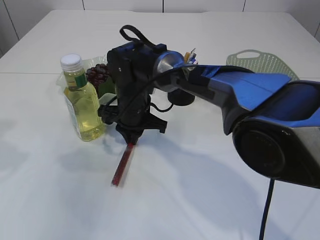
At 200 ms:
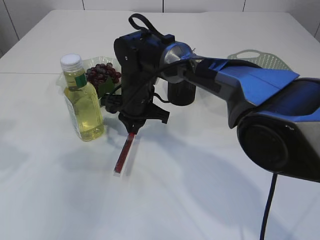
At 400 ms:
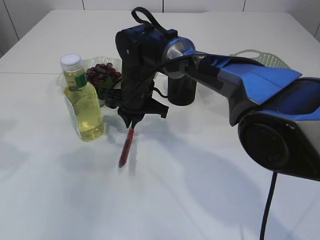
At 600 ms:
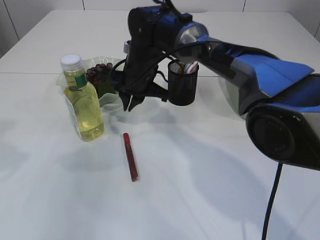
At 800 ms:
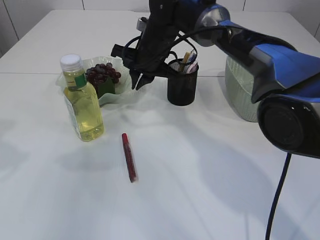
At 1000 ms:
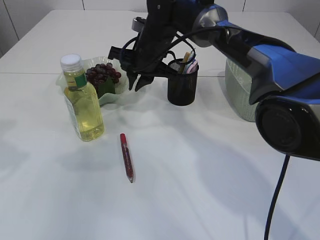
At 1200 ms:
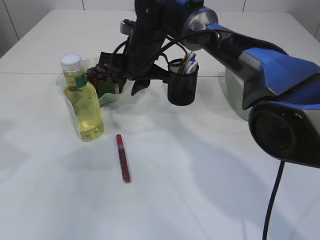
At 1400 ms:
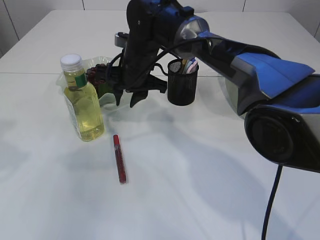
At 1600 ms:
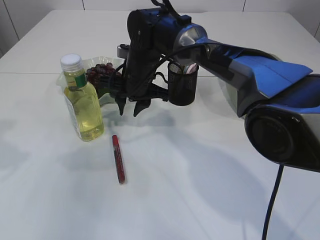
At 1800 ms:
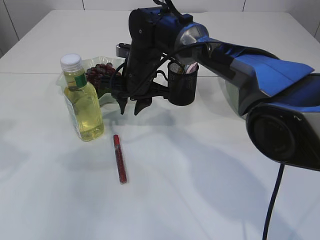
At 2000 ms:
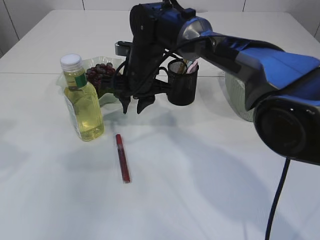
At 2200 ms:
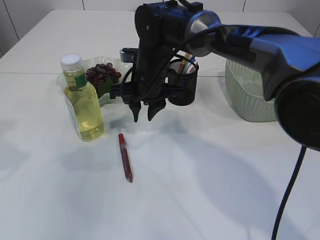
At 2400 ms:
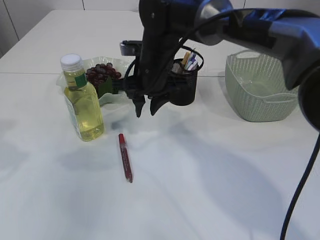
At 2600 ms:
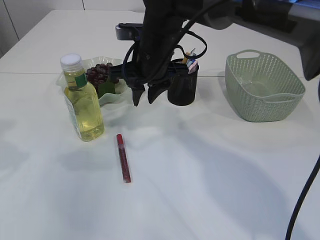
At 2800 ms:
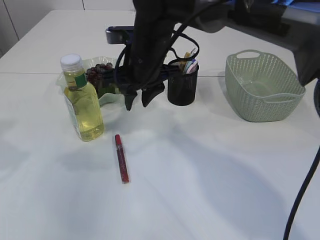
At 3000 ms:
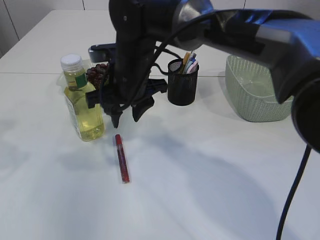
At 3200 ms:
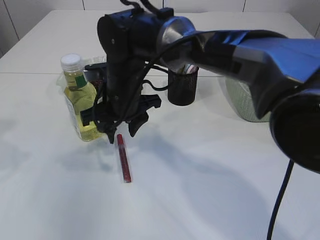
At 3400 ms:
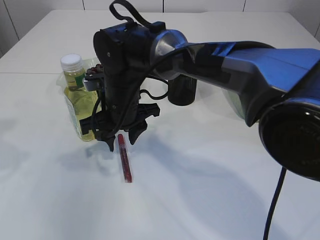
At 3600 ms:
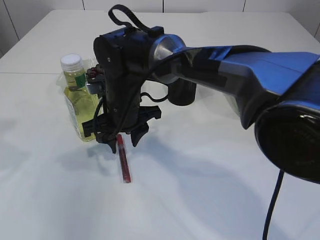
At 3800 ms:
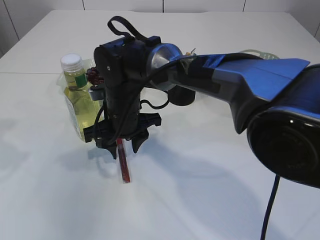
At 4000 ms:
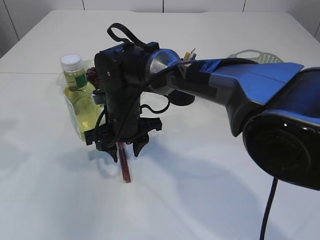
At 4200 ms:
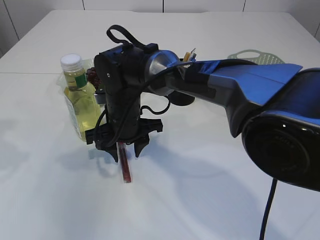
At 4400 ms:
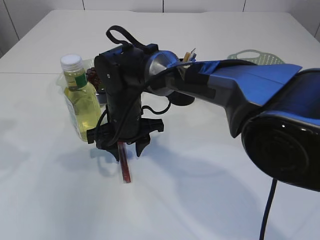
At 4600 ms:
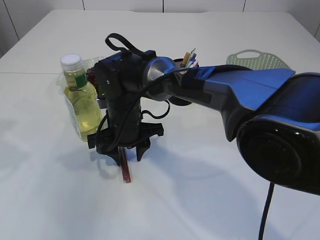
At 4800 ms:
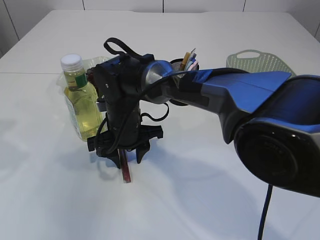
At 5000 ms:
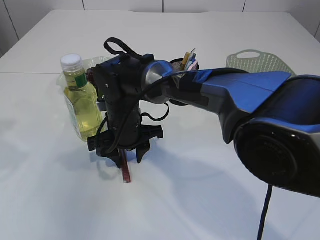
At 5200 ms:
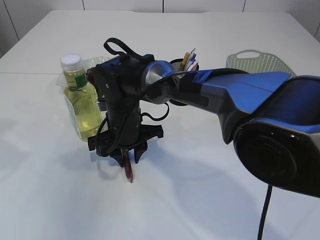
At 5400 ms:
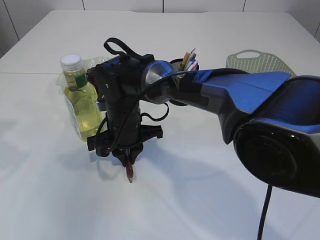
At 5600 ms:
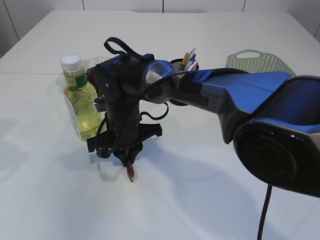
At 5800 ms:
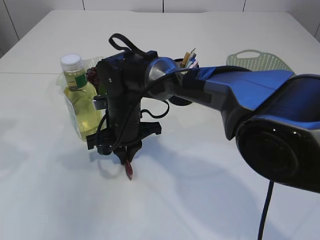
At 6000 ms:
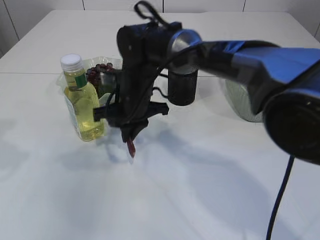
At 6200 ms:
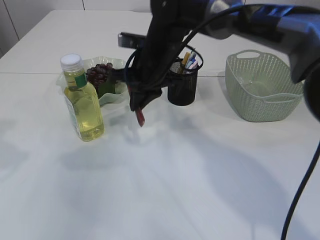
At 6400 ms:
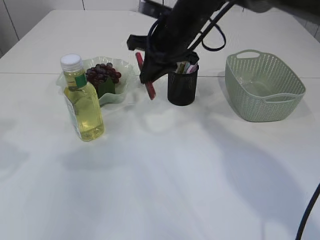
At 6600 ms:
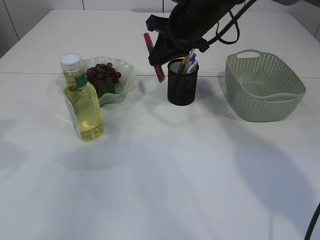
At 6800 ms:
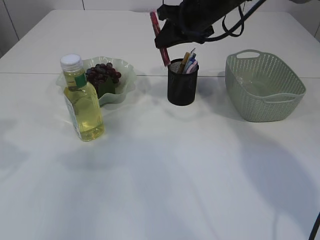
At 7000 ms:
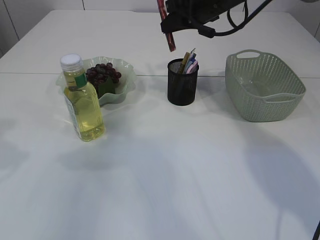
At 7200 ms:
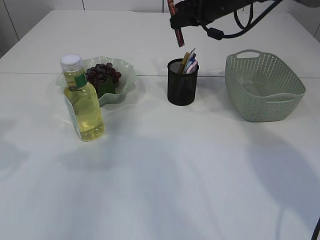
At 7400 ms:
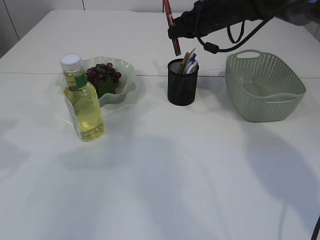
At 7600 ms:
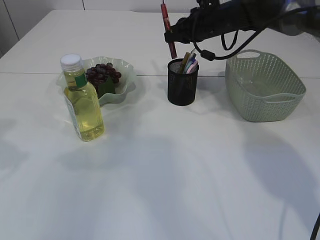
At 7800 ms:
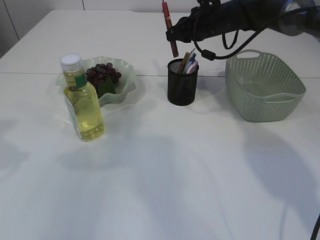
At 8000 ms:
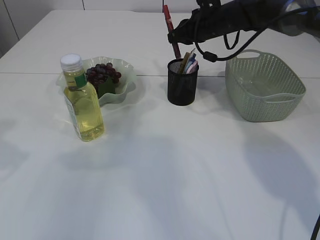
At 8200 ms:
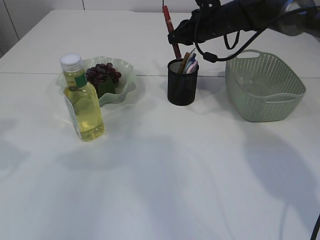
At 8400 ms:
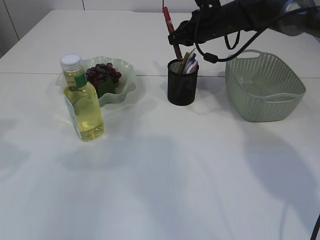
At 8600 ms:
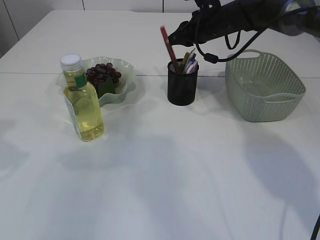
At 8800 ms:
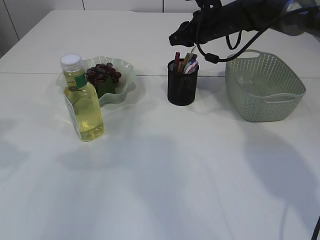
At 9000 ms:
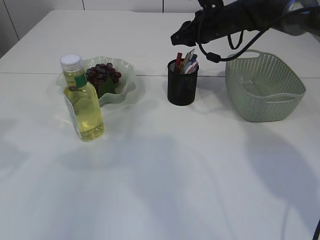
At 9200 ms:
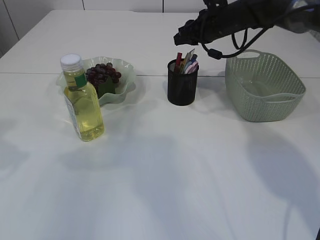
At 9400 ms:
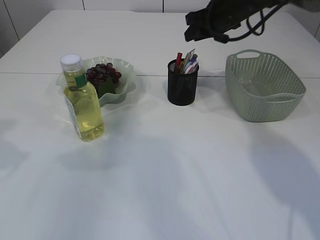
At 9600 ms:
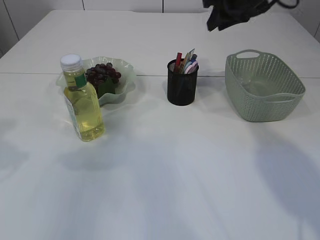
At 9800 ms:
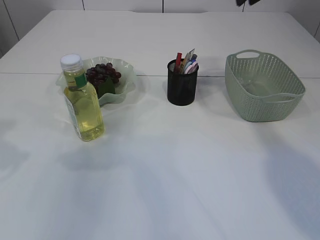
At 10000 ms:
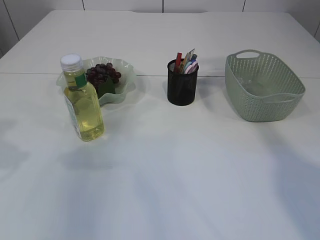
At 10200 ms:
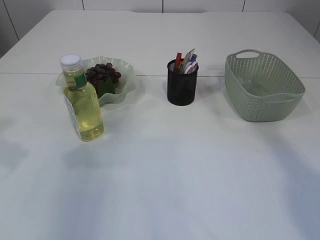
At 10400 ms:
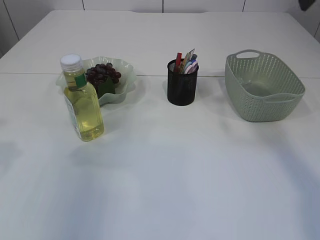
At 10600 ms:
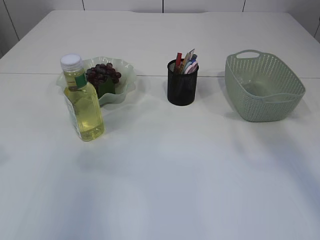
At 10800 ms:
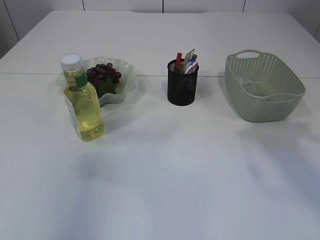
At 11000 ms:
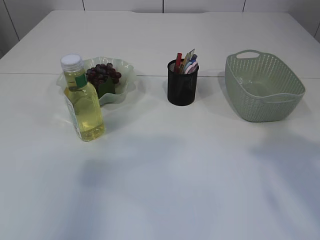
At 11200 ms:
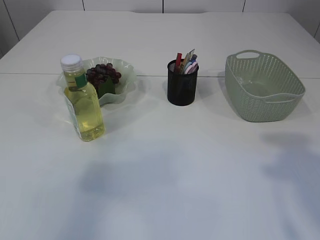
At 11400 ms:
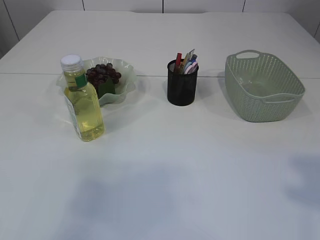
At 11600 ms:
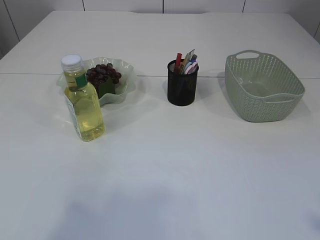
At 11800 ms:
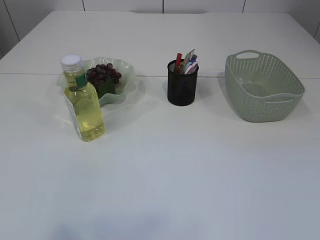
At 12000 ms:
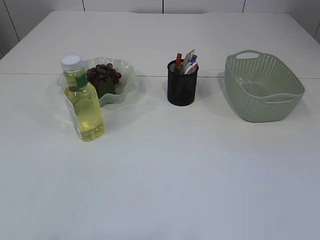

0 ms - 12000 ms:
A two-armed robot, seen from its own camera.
Step, 0 ms - 6200 ms: pick up the red glue.
Step, 6400 ms - 9200 ms: place the red glue into the pen holder.
0 ms - 1600 ms: The right gripper opens its fingers.
1600 ms - 3000 ms: The right gripper shifts approximately 5 cm backward.
3000 ms - 4400 ms: The right gripper shifts roughly 10 cm downward.
4400 ms - 6000 ms: The right gripper closes its fingers.
6000 ms - 7600 ms: The right gripper travels to the right, forward and upward by roughly 25 cm.
7600 ms - 9000 ms: The grippers move only a little.
9000 ms - 10400 ms: The right gripper heads backward, upward and to the right, covering approximately 30 cm. The left gripper opens.
10400 ms - 12000 ms: The left gripper shifts roughly 25 cm backward.

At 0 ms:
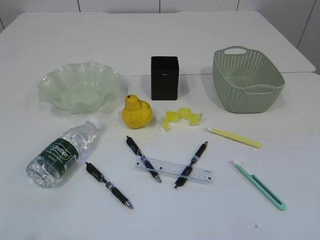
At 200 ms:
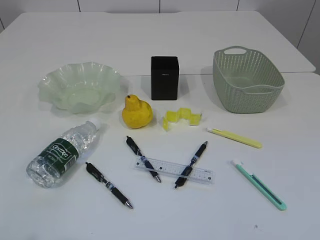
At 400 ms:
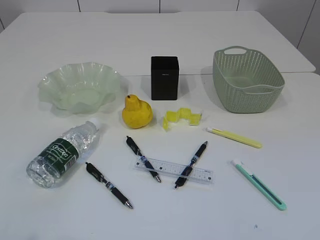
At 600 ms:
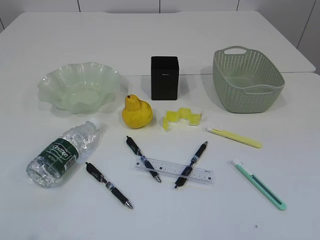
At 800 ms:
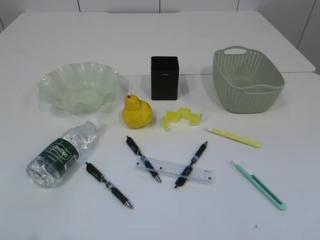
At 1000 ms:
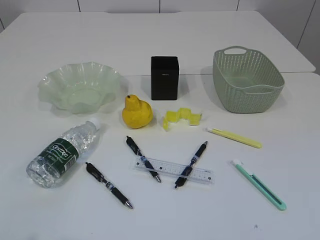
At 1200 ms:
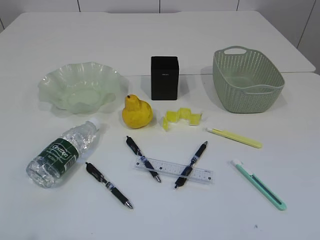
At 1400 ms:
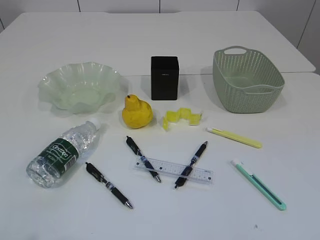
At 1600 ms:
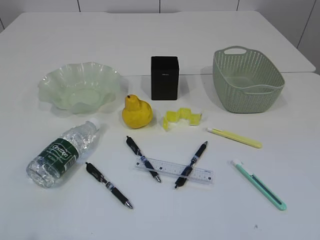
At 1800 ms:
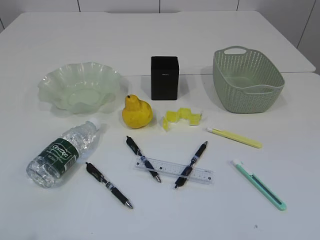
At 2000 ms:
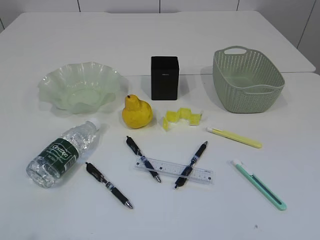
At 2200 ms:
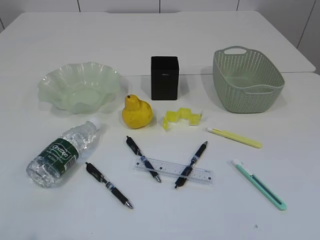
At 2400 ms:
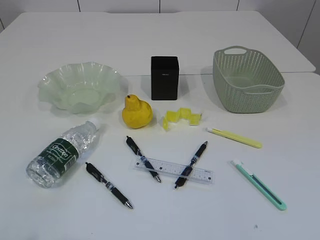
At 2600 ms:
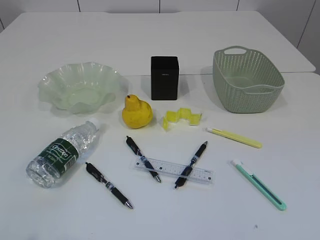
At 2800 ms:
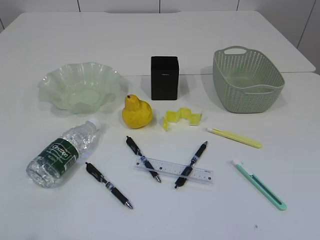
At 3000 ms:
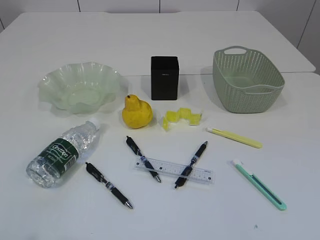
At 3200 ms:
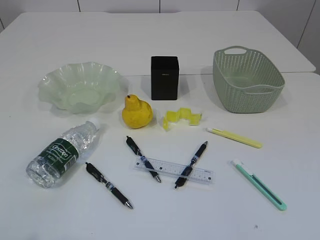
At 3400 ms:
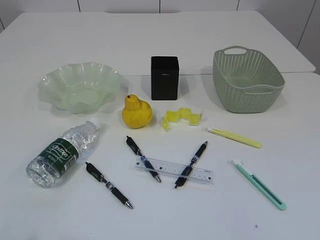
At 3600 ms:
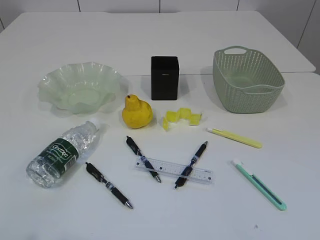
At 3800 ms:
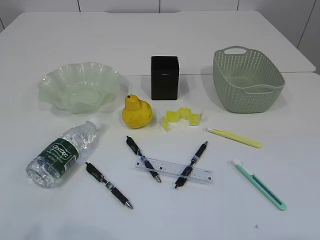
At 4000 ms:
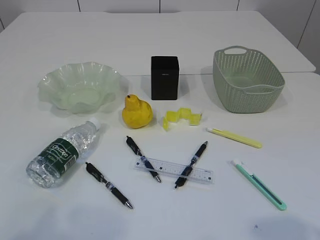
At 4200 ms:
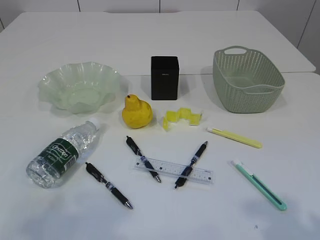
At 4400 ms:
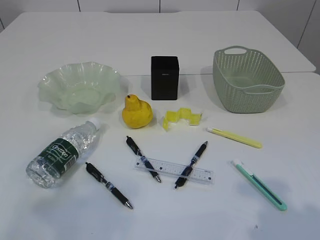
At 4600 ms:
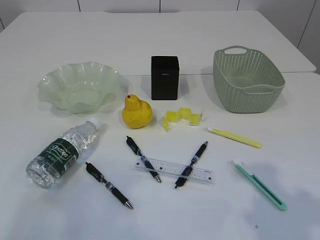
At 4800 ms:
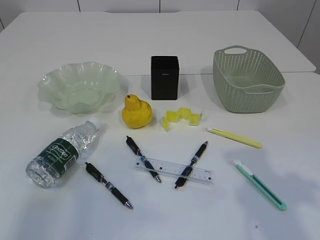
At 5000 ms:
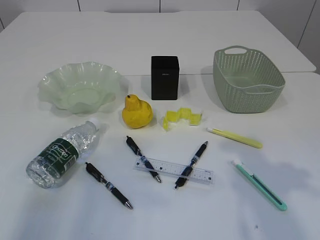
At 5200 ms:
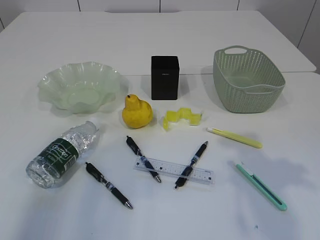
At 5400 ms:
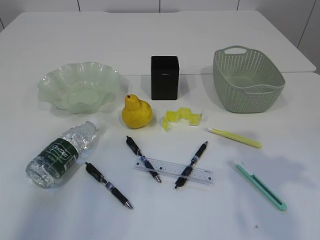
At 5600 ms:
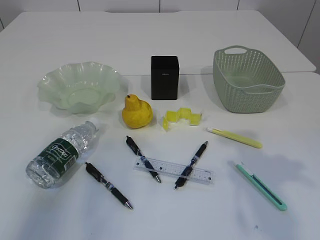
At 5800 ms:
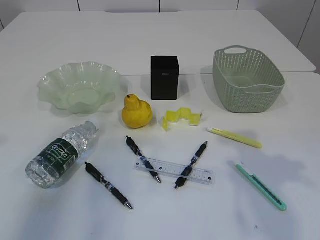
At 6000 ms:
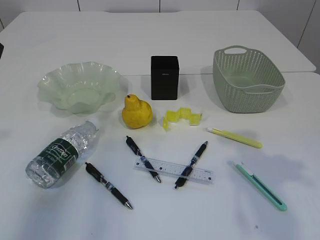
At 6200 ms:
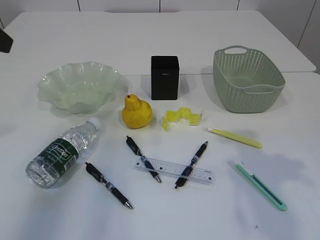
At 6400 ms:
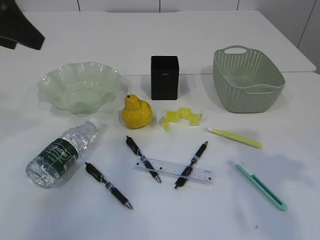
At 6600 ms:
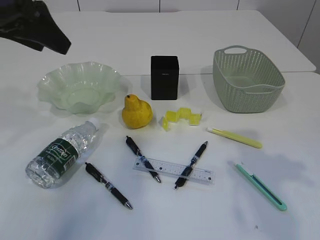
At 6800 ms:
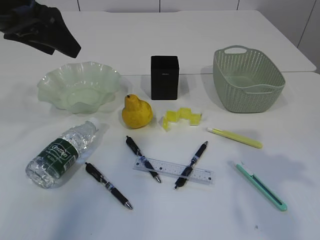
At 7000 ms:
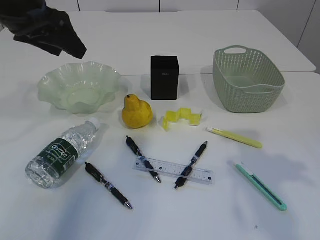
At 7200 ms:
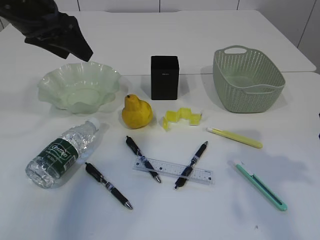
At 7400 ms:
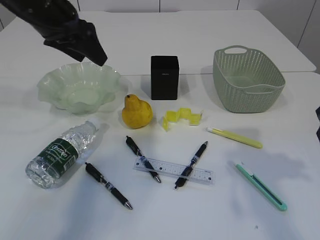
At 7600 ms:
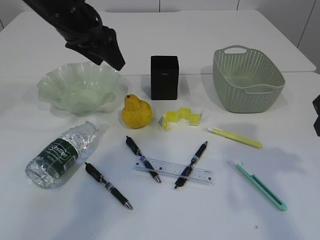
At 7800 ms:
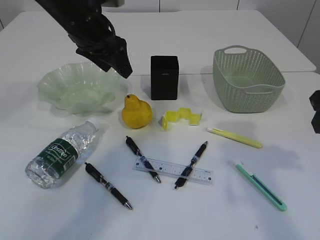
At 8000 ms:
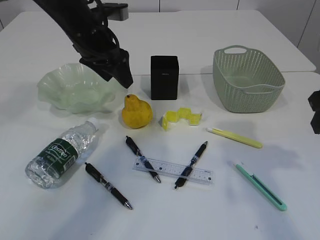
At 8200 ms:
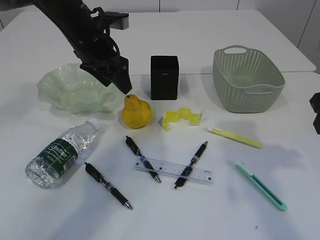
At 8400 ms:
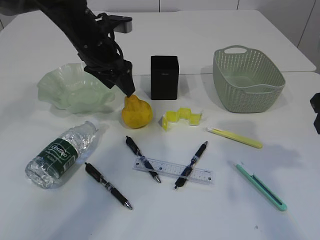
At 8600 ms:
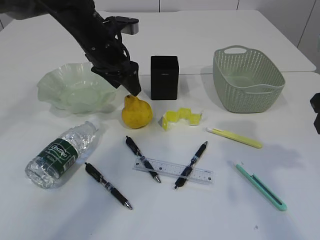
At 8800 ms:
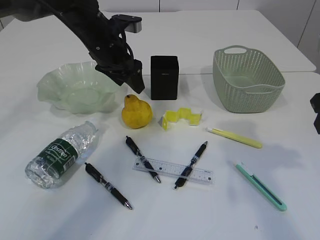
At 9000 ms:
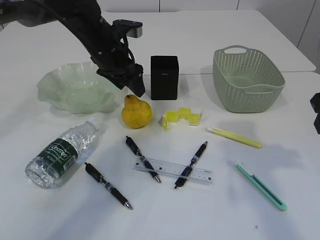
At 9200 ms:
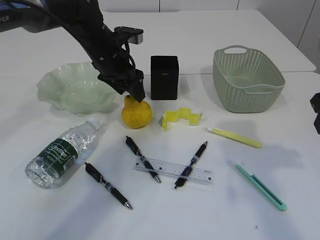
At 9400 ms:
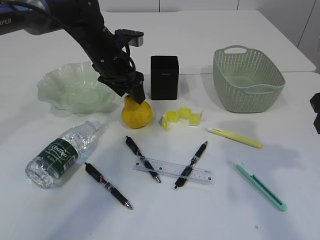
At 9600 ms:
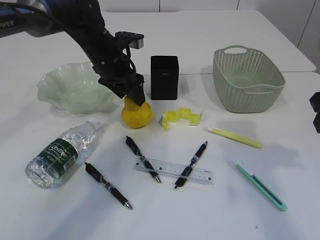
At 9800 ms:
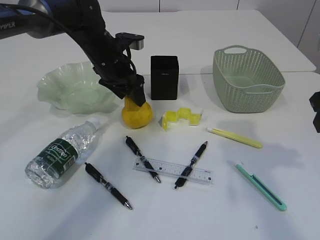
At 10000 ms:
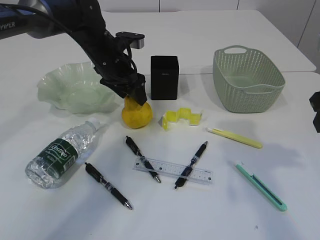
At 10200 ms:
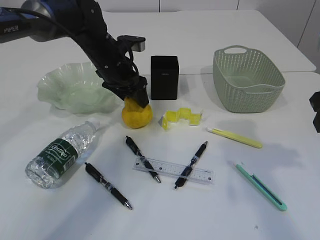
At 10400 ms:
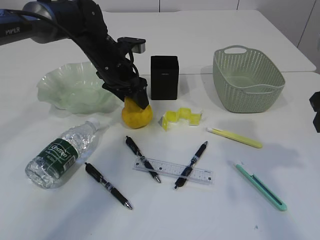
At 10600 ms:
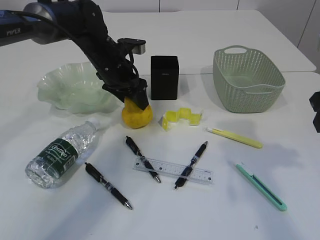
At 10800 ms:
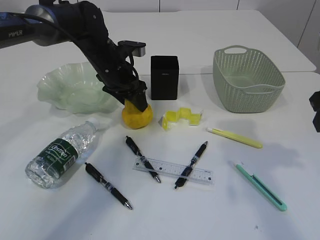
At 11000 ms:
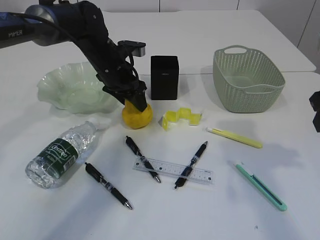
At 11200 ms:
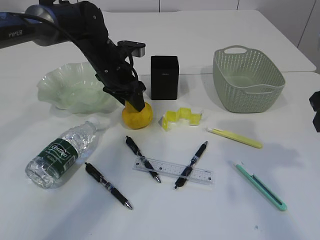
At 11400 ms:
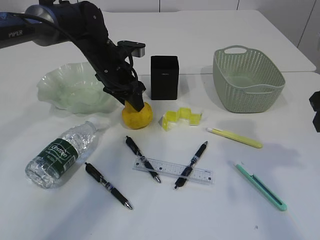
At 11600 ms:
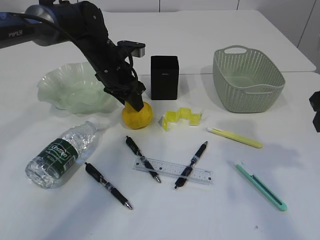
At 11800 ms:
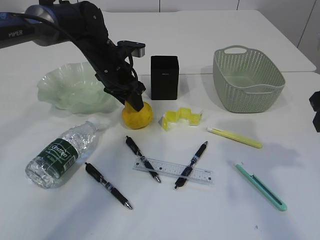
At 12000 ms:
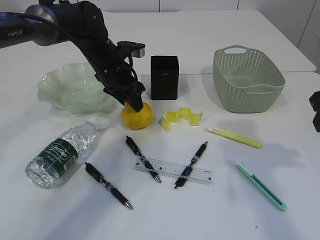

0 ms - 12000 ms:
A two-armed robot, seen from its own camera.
1600 ms - 3000 ms: Neither gripper changes place.
3000 ms - 4400 ms: The left gripper shifts approximately 10 cm forward and upward. Meanwhile the right gripper is displaced forward by approximately 10 cm.
4400 ms - 6000 ms: The left gripper moves forward, approximately 20 cm.
6000 ms - 7600 ms: The left gripper moves forward, to the right and downward, about 20 cm.
7600 ms - 9000 ms: The left gripper travels downward by about 10 cm.
9000 ms - 10400 ms: The grippers stay close to where they were, moving slightly.
10400 ms - 12000 ms: The left gripper closes its fingers.
